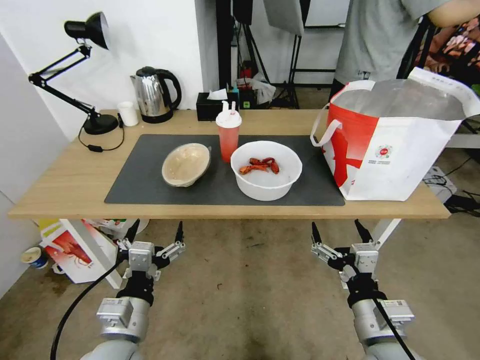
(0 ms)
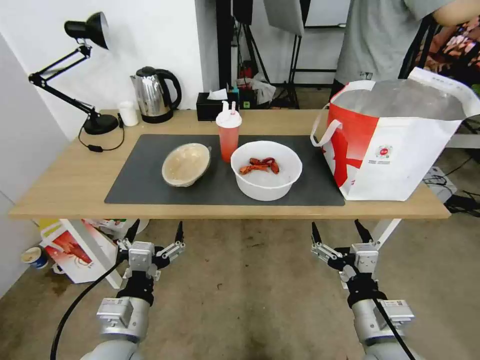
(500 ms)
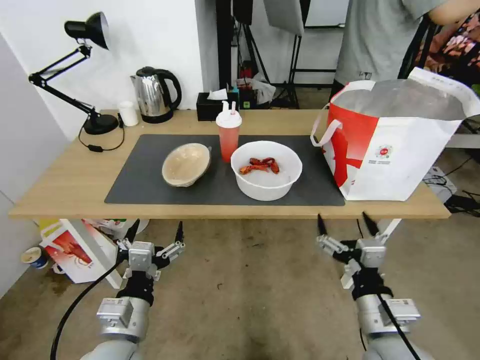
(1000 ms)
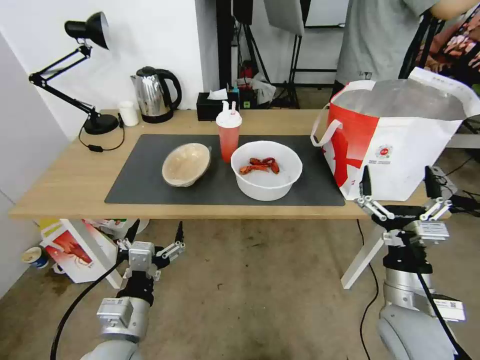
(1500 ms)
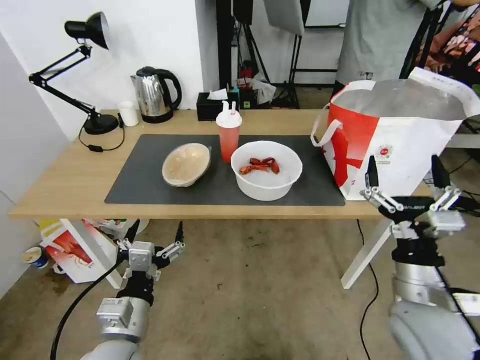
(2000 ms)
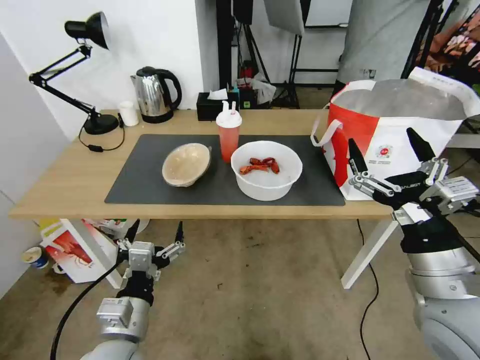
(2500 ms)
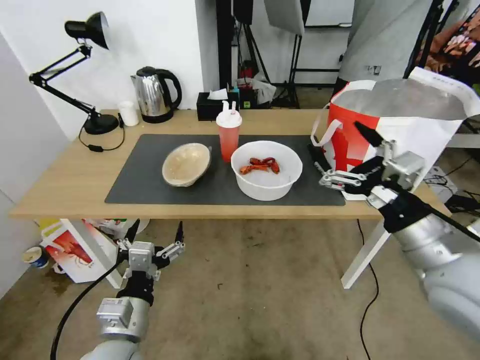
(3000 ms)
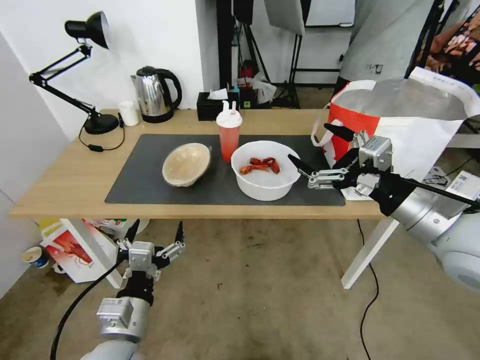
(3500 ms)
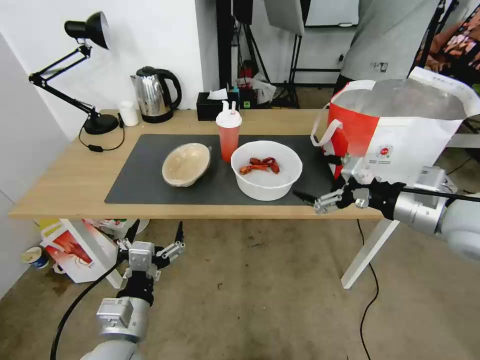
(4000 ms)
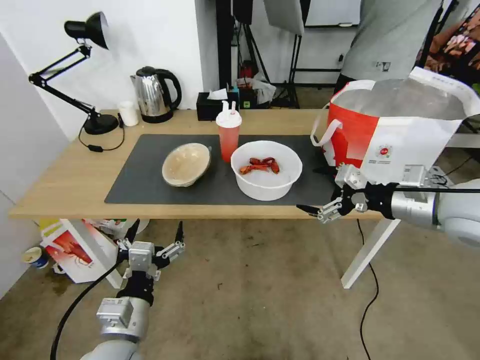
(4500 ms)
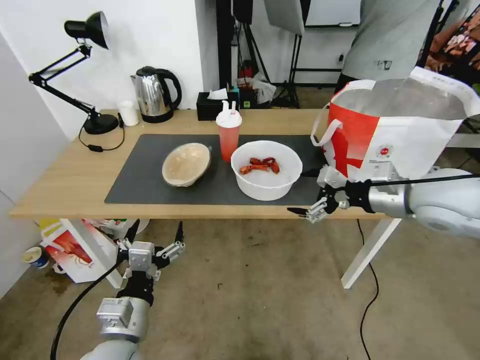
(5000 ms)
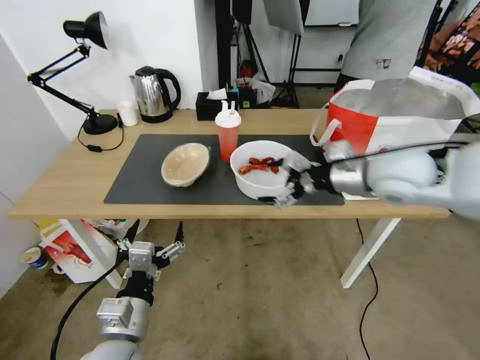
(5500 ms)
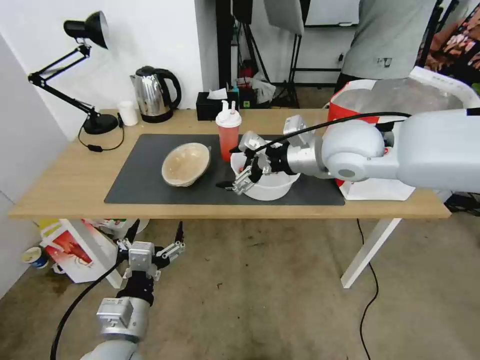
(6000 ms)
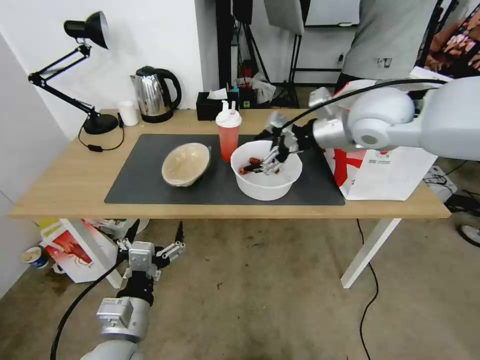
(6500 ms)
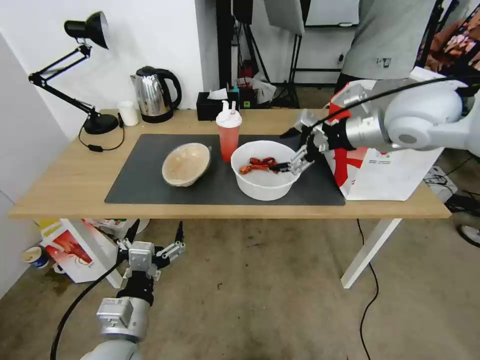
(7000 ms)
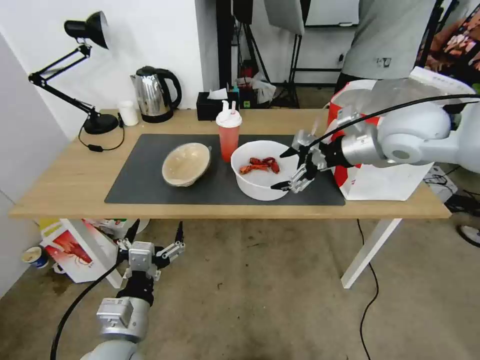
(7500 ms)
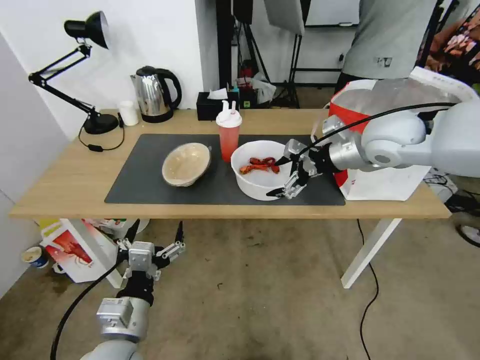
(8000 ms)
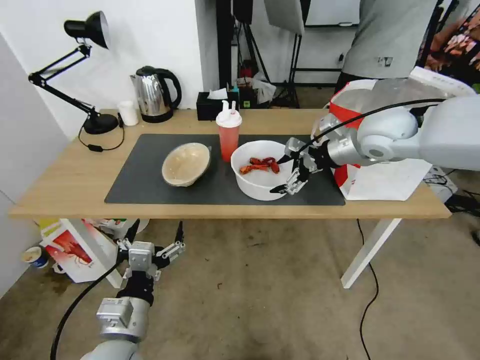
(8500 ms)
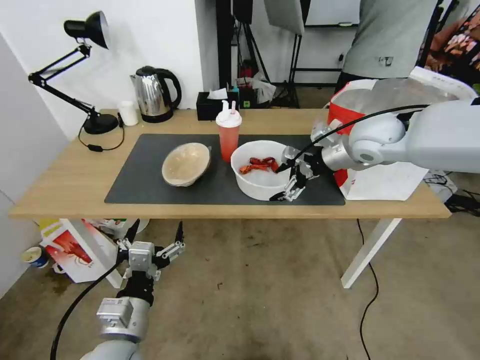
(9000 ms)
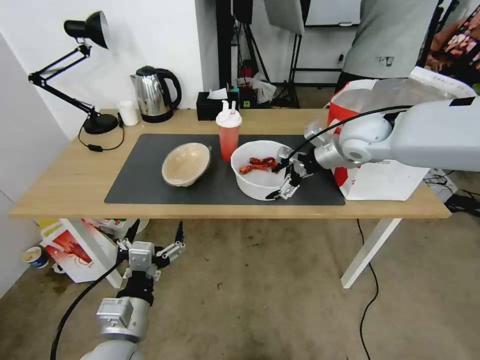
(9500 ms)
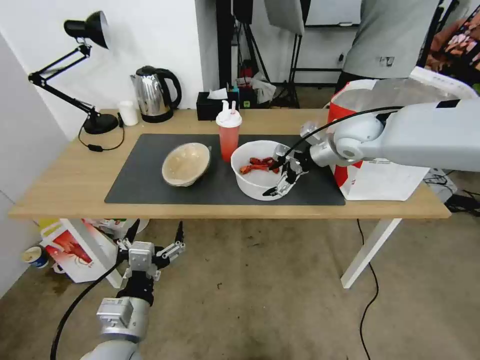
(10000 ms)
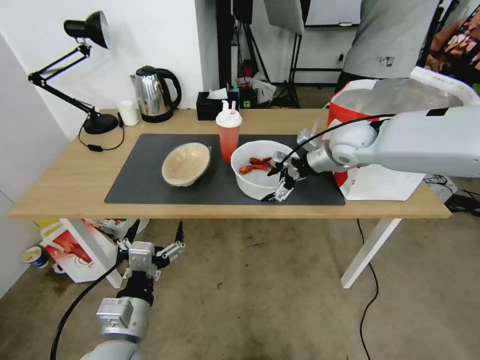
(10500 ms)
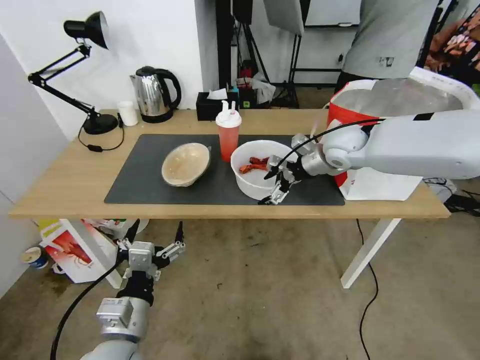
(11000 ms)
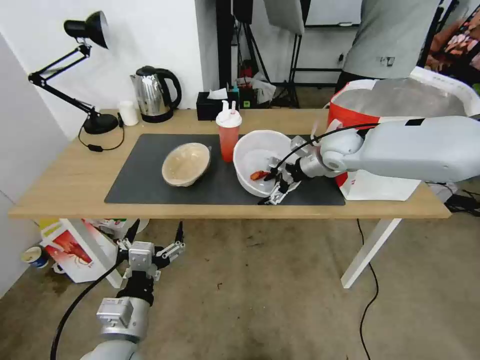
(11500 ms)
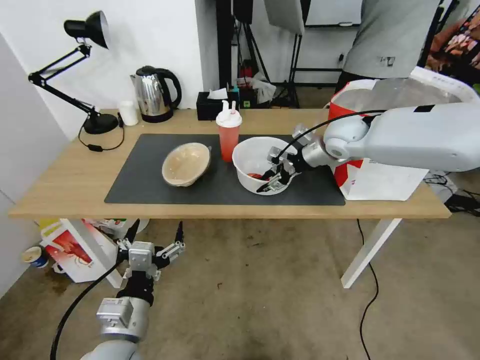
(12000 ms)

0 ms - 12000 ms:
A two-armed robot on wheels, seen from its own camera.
Task of the whole recording: Pick up the trash from the table and place it into the takeout bag.
2000 ms - 4000 ms: The right gripper shifts roughly 20 cm upward and forward.
4000 ms - 6000 ms: The right gripper moves to the left and forward, approximately 20 cm.
6000 ms - 8000 ms: The right gripper shifts some 10 cm to the right.
8000 ms - 10000 ms: The right gripper travels forward by about 5 cm.
10000 ms - 12000 ms: The right gripper closes.

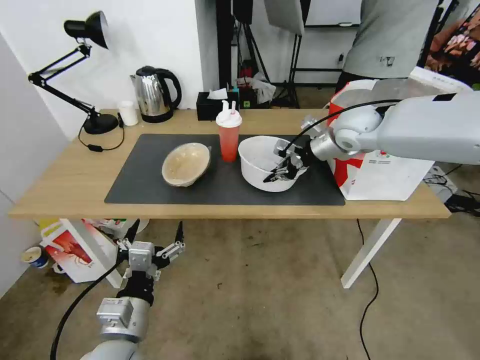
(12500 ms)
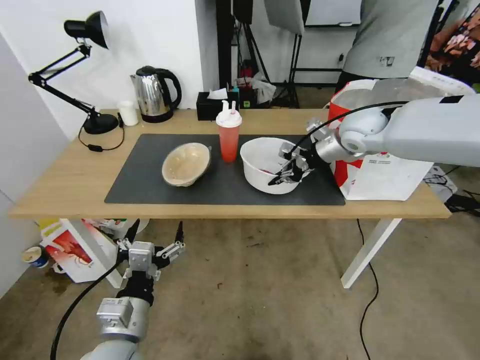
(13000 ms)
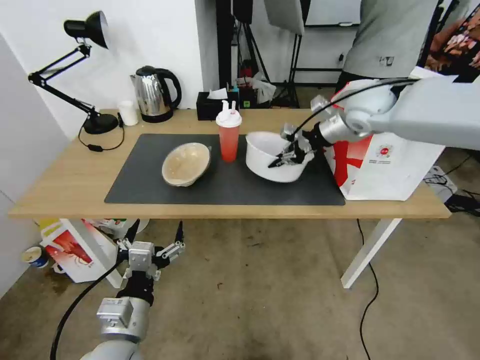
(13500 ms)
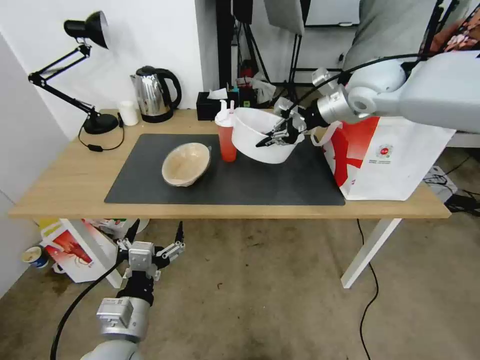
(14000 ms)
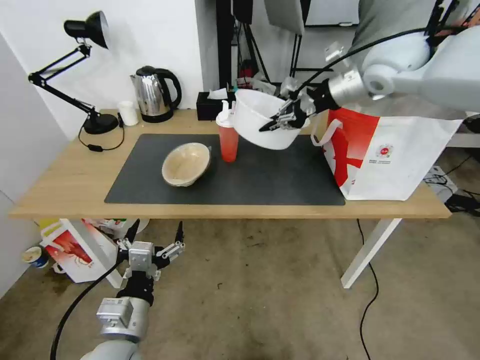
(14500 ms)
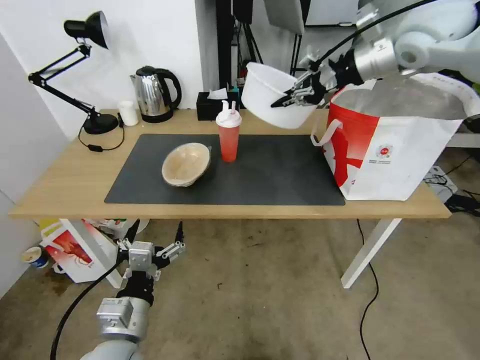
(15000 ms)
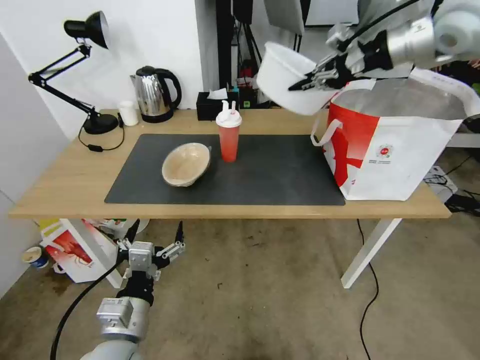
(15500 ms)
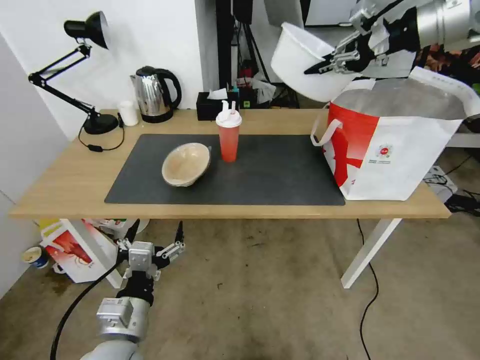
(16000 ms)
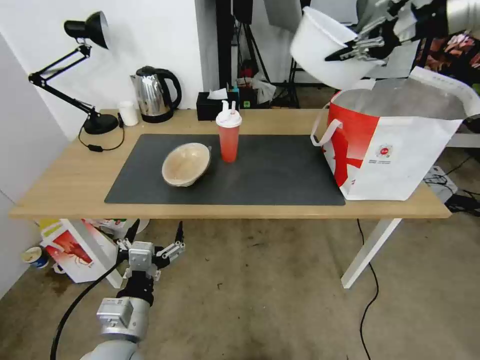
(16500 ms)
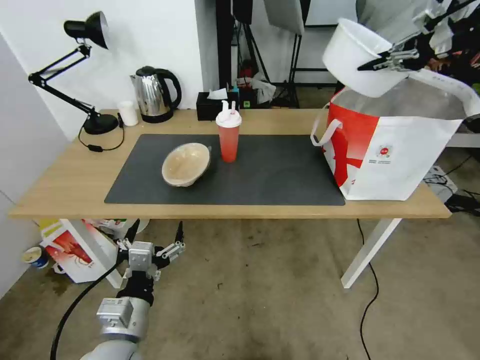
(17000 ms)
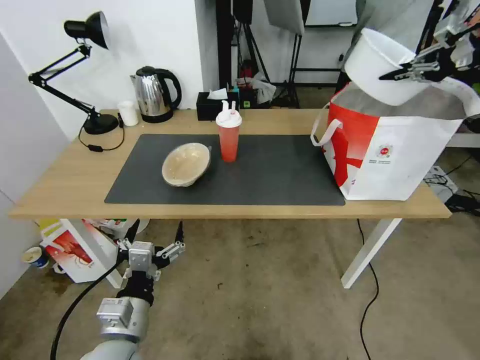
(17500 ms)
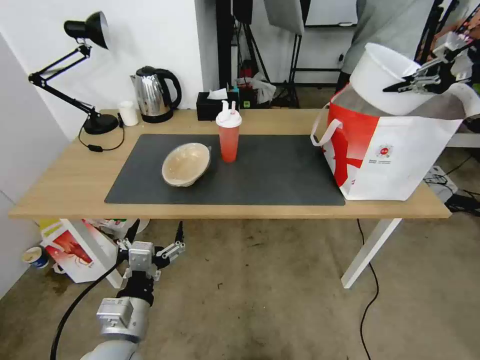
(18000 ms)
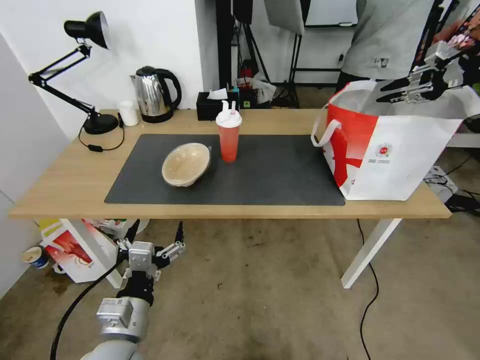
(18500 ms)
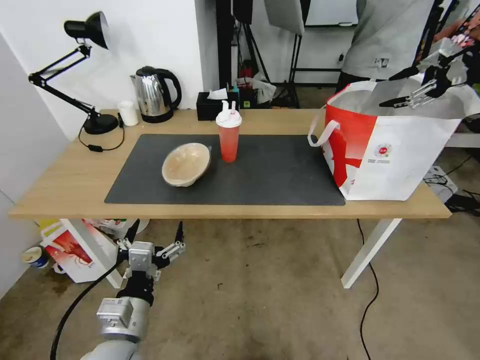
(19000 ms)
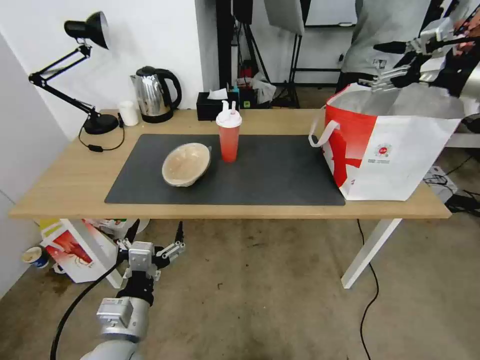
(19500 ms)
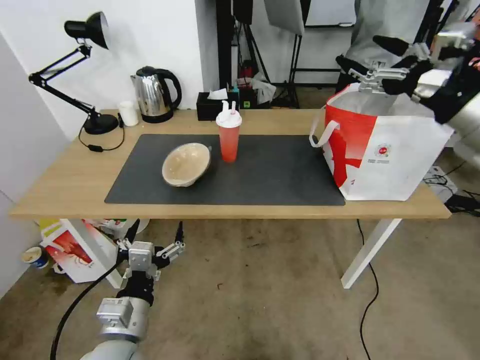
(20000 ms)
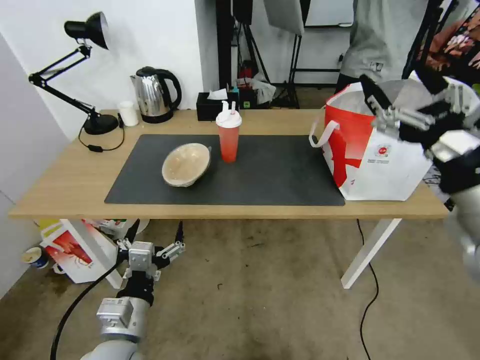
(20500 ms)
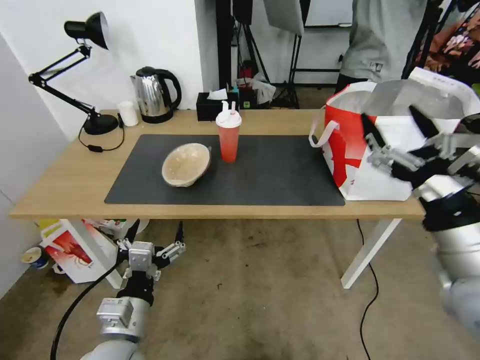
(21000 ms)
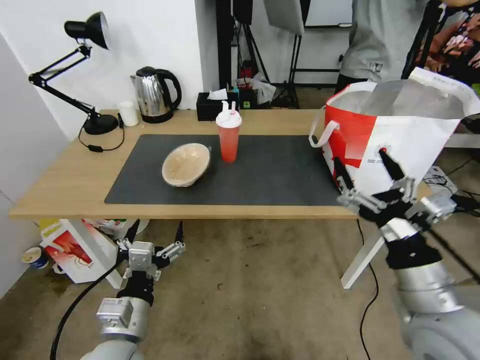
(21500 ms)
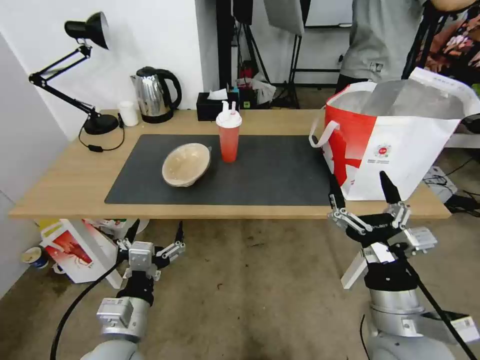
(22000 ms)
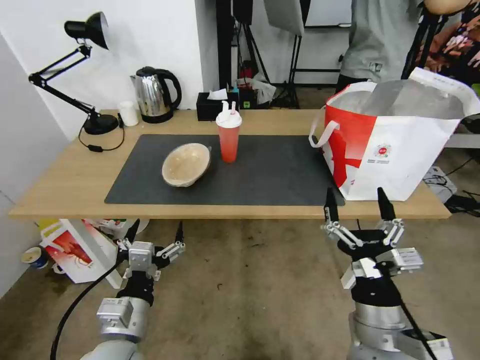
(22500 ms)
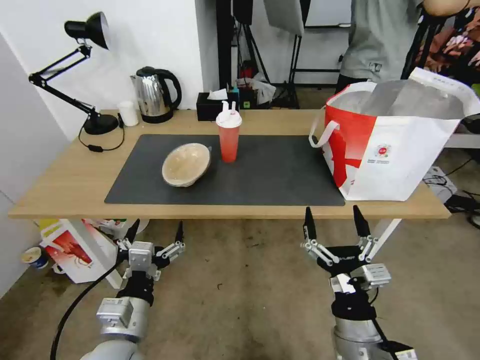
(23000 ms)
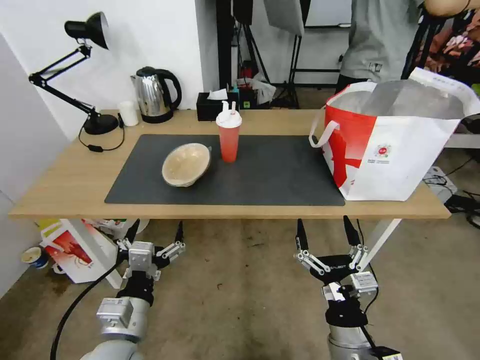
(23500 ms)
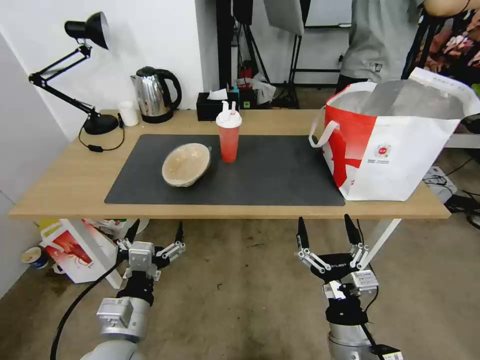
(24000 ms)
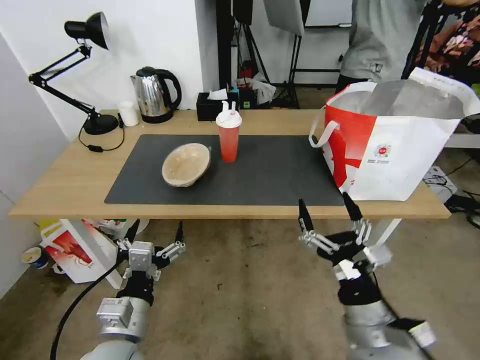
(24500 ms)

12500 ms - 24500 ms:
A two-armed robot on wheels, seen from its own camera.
Task of the whole recording: Pick up the trash from the table and place it into the takeout bag.
12500 ms - 14500 ms: The right gripper travels upward by roughly 15 cm.
14500 ms - 16500 ms: The right gripper heads to the right and upward, covering roughly 20 cm.
16500 ms - 18500 ms: The right gripper travels to the right and downward by roughly 15 cm.
18500 ms - 20500 ms: The right gripper shifts approximately 35 cm backward, to the left and downward, and opens its fingers.
20500 ms - 22500 ms: The right gripper travels downward, to the left and backward by roughly 25 cm.

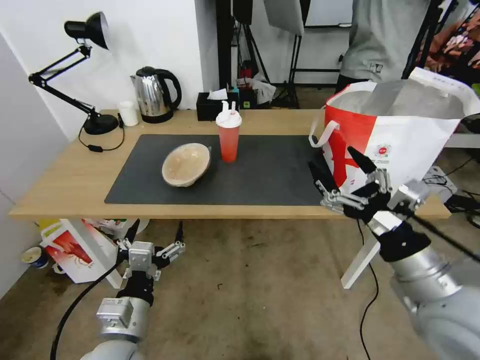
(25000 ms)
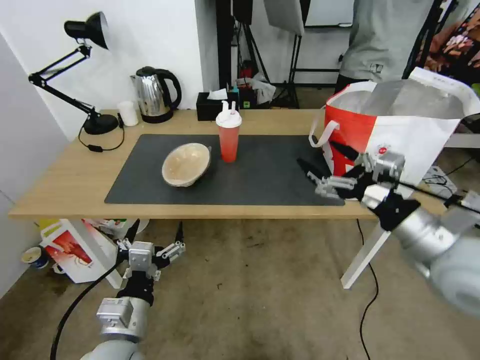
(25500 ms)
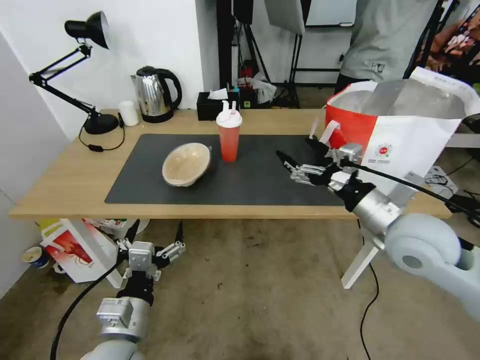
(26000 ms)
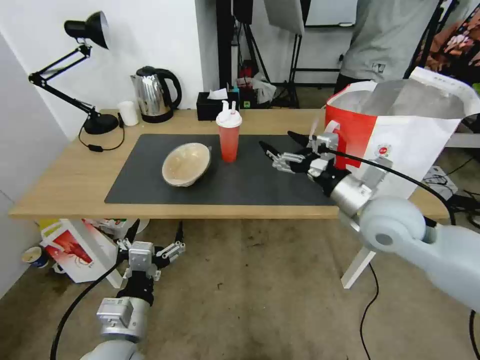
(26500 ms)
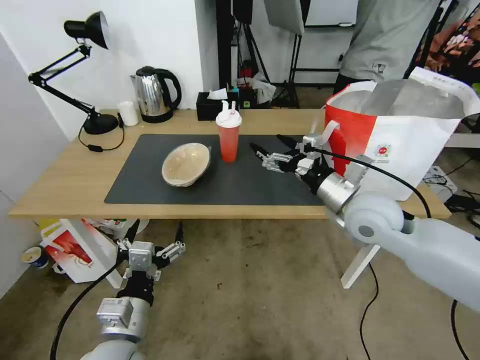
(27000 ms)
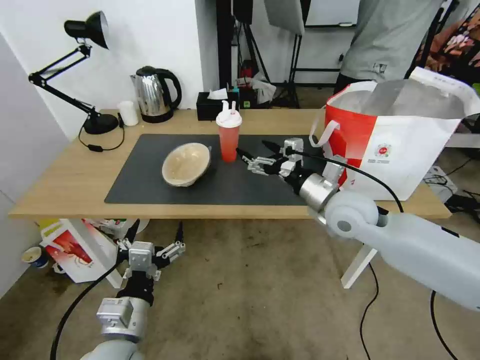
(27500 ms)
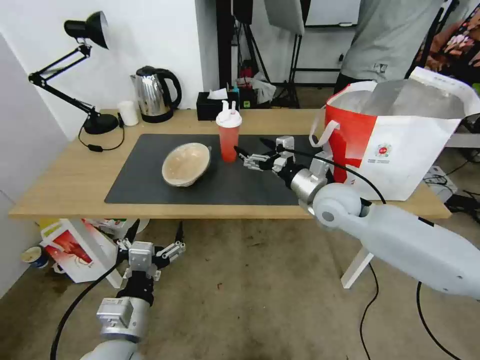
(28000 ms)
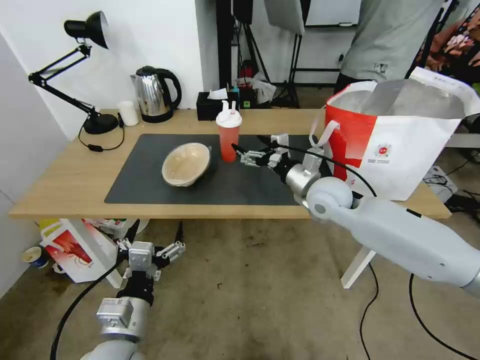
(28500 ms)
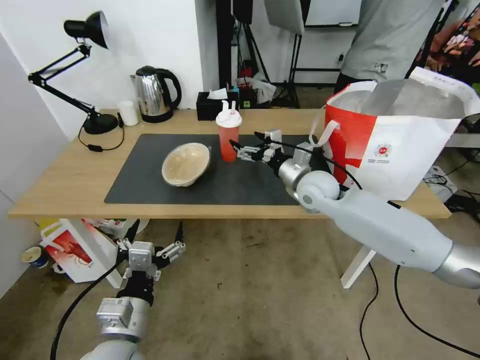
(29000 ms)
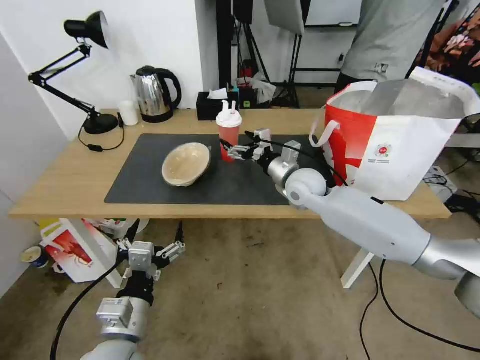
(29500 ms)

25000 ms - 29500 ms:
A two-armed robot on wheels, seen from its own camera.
Task of the whole recording: Pick up the trash from the table and place it into the takeout bag.
25000 ms - 27000 ms: The right gripper travels forward by approximately 15 cm.
27000 ms - 29500 ms: The right gripper goes some 15 cm forward, to the left and downward.
